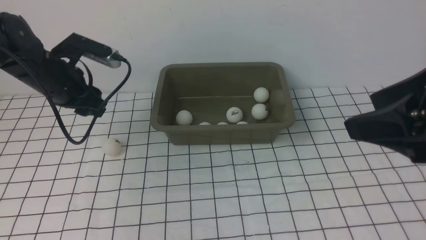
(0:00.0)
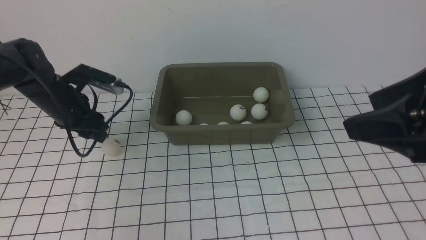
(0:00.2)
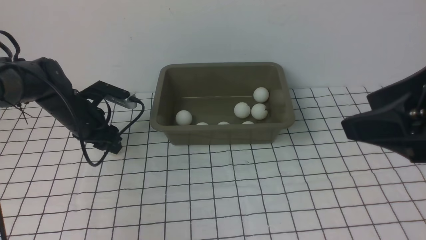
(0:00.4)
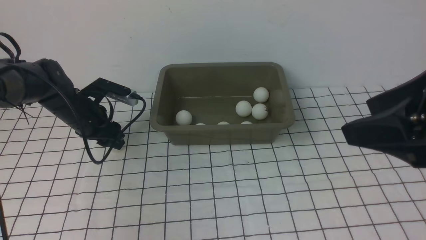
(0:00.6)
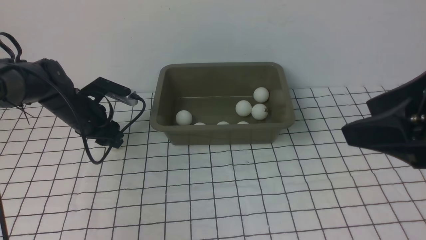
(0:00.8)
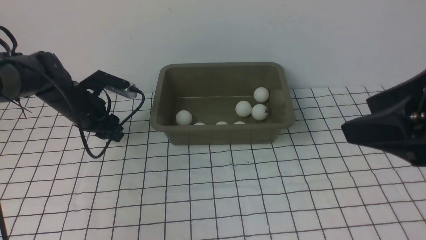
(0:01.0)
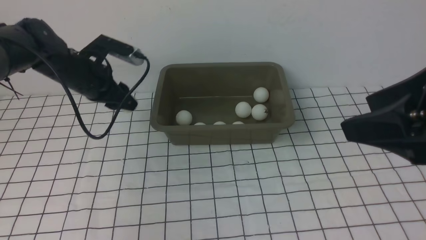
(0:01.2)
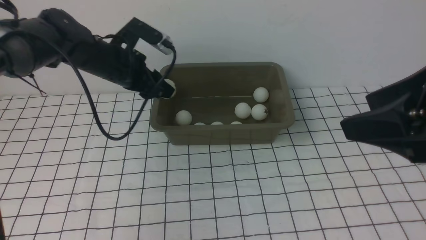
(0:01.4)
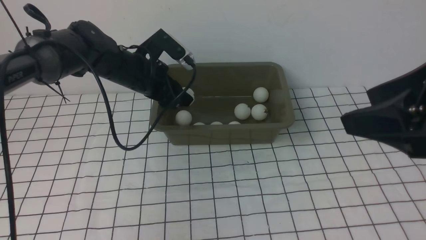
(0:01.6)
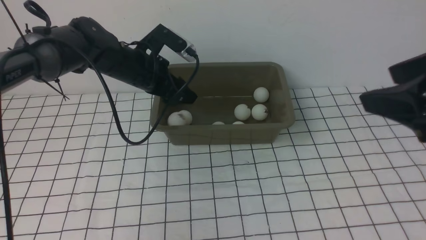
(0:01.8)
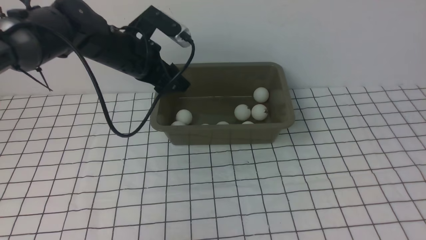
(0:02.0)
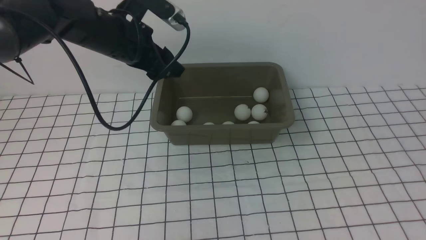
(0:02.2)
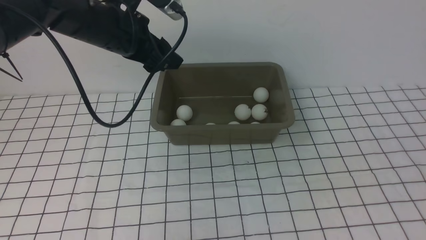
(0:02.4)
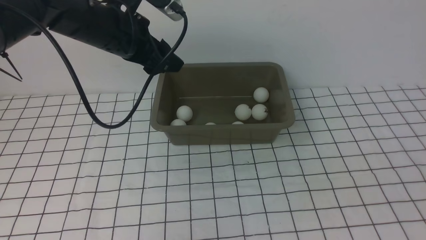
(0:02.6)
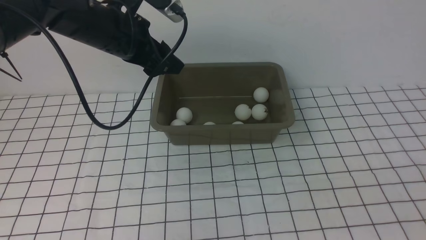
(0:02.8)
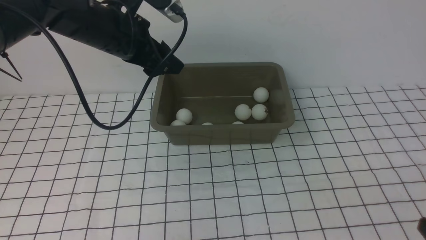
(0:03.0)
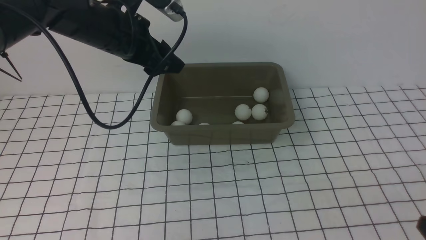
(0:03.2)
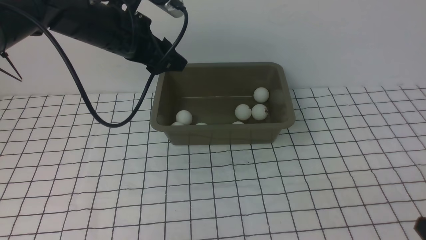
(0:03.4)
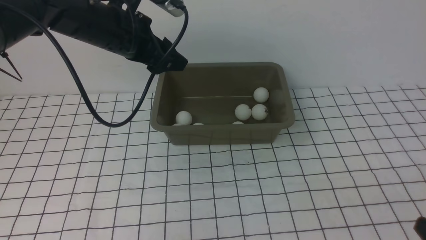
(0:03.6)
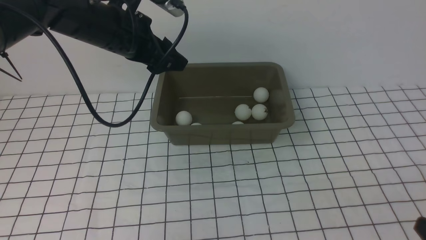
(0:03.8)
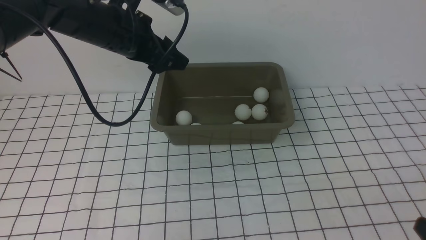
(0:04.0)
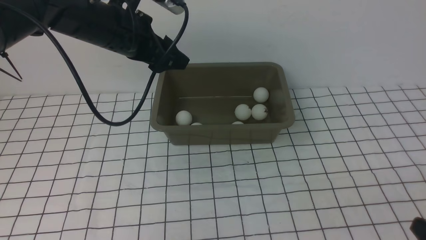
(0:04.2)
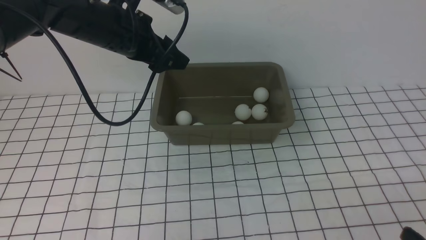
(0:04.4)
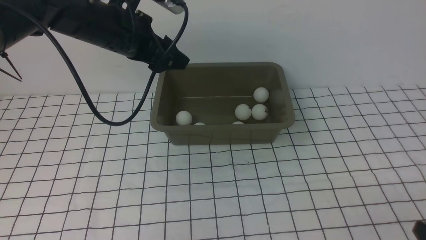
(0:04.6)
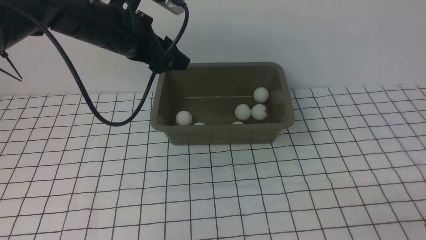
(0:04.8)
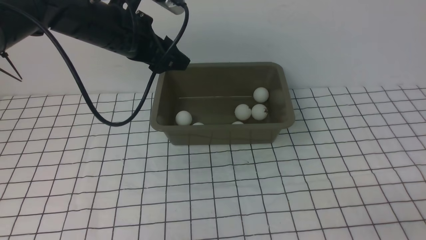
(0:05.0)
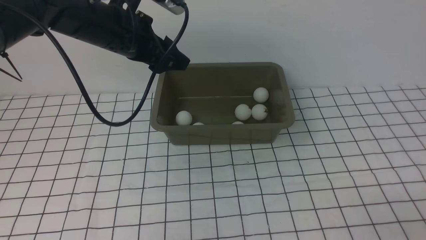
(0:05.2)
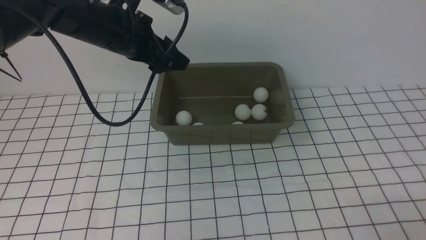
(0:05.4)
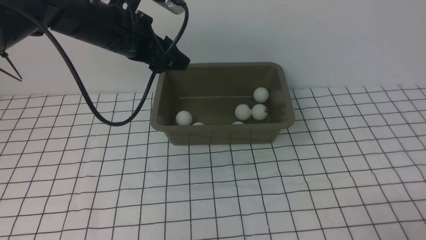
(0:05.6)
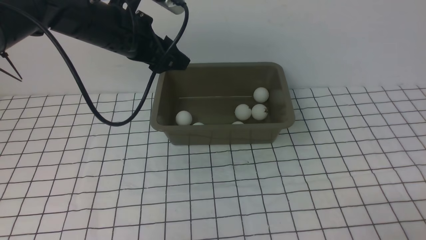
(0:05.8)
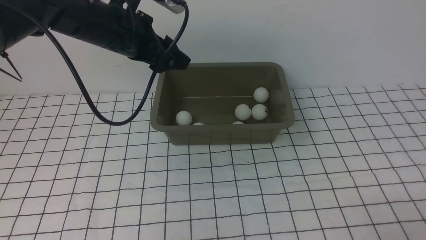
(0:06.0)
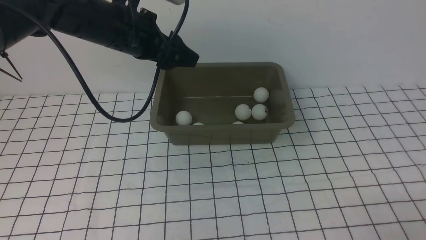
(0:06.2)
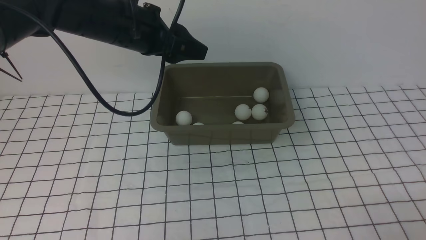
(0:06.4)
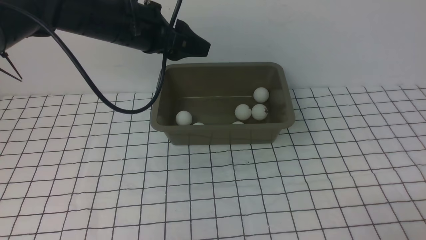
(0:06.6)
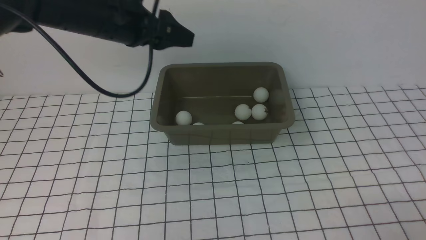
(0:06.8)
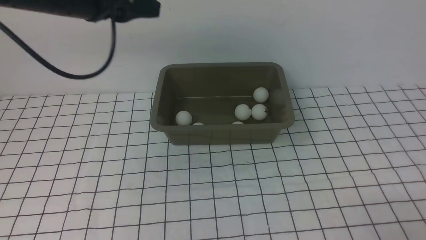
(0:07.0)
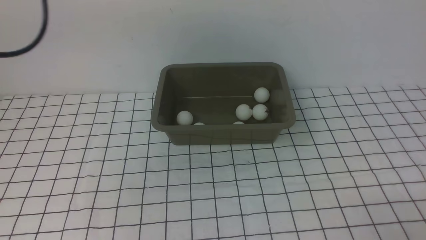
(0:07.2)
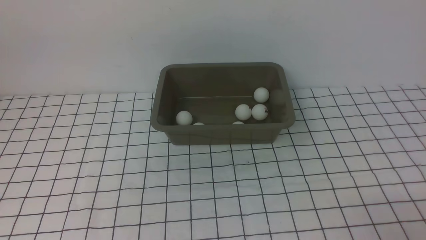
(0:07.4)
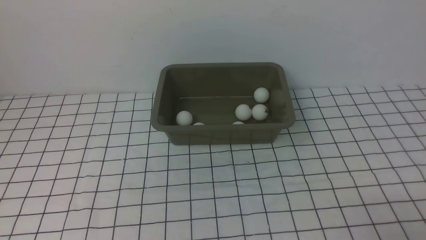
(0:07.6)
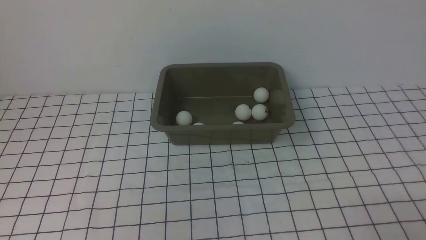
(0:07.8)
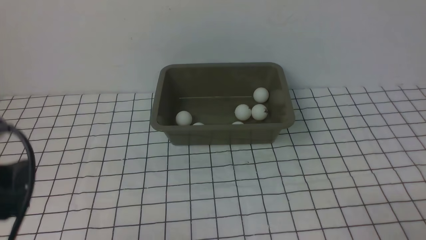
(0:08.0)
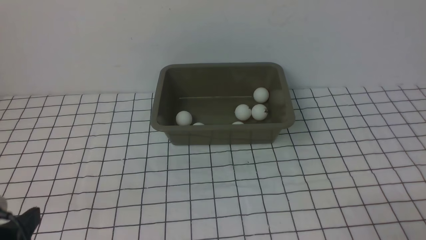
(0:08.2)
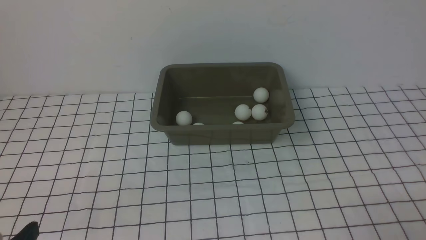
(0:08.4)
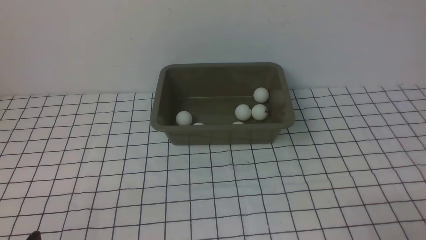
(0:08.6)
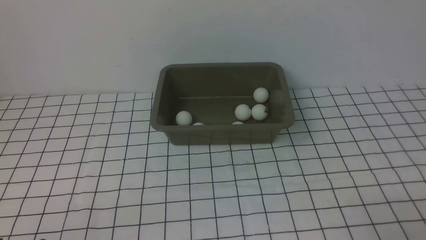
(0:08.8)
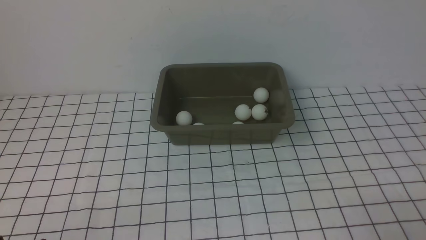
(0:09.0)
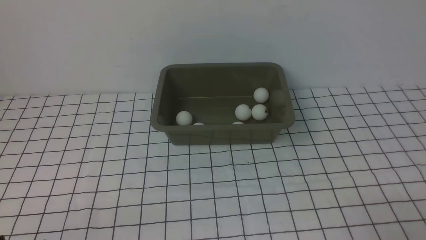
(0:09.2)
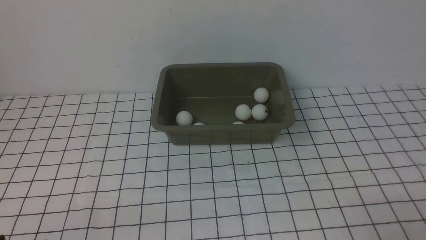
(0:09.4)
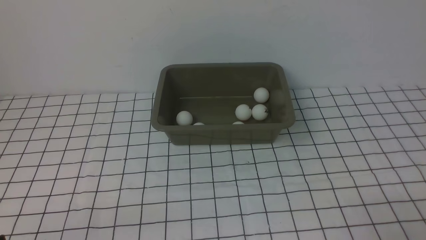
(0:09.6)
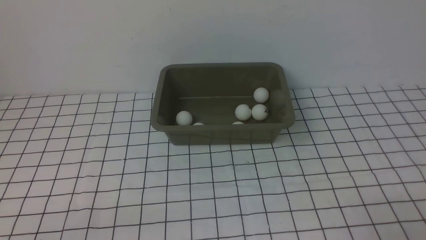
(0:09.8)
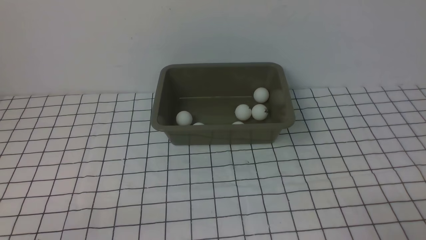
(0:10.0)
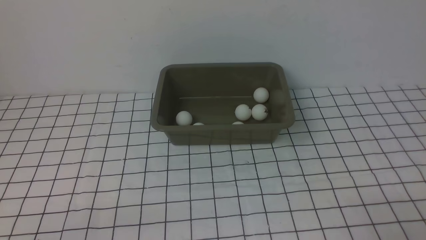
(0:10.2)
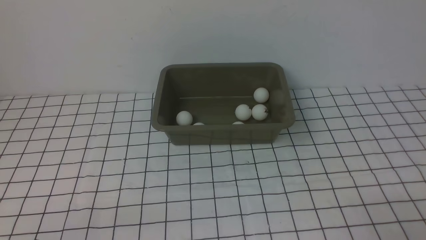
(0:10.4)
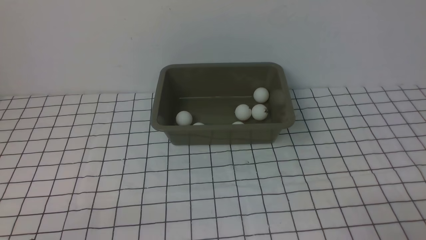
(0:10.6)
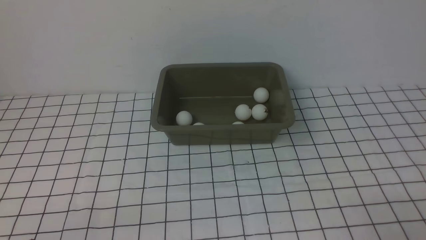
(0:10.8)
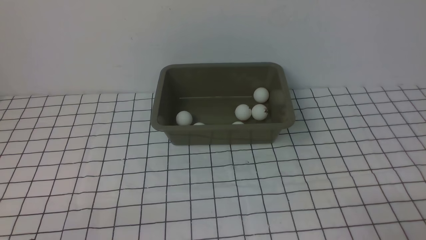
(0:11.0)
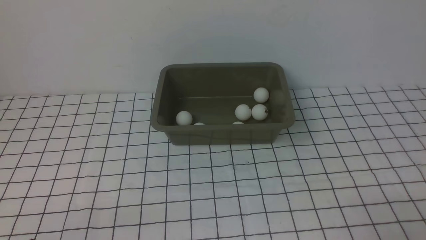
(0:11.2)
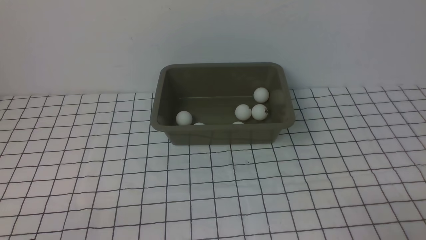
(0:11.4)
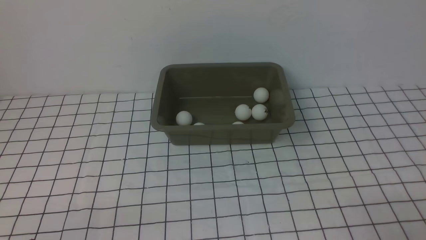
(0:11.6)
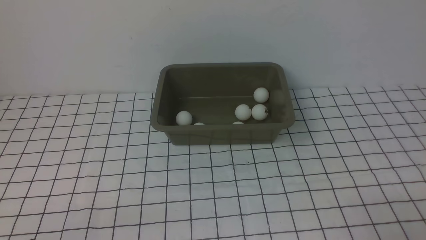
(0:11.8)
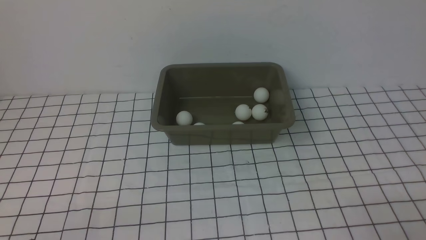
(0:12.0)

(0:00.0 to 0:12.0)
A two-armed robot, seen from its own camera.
Step, 0:00.0 - 0:01.0: use the left arm to clamp the table tennis ball closest to it.
Step, 0:01.2 - 0:01.8: use the left arm to put the table tennis ball into the box.
0:00.0 - 0:01.6: The left gripper is displaced to the right by approximately 10 cm.
0:01.6 - 0:03.0: The right gripper shifts roughly 20 cm downward, backward and to the right; the left gripper is displaced upward by about 10 cm, and opens.
0:03.0 - 0:04.4: There are only small adjustments of the grippers.
0:06.0 - 0:07.6: The left gripper moves backward and to the left, some 25 cm.
0:07.6 - 0:09.0: The left gripper moves downward and backward, approximately 25 cm.
0:09.0 - 0:10.4: Both grippers stay about where they are.
0:10.4 - 0:12.0: Both grippers stay put.

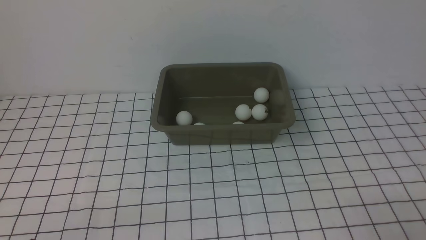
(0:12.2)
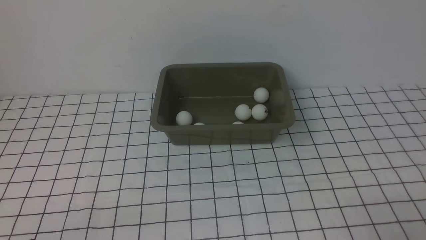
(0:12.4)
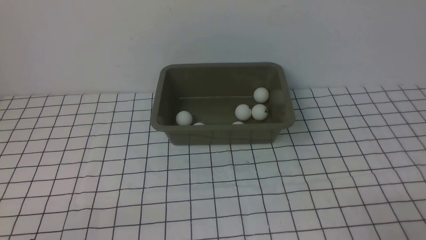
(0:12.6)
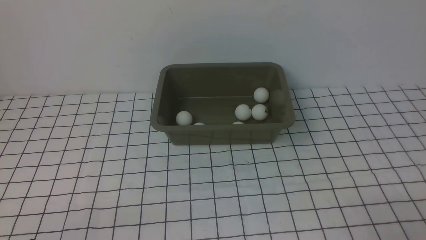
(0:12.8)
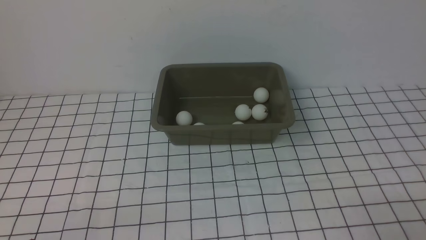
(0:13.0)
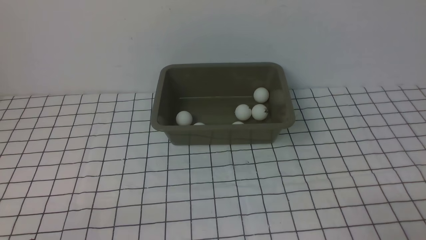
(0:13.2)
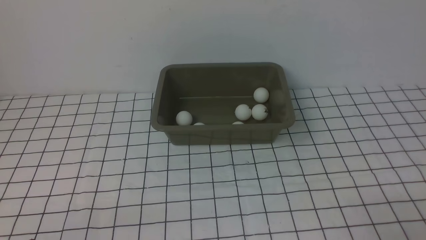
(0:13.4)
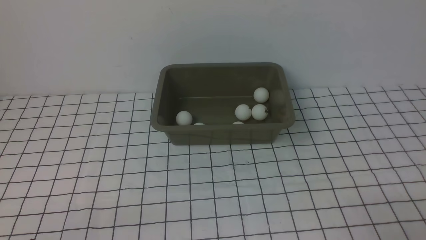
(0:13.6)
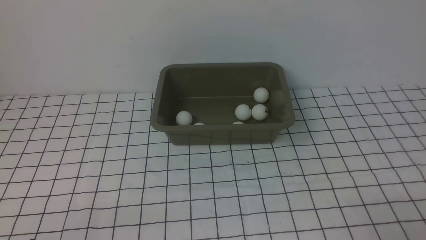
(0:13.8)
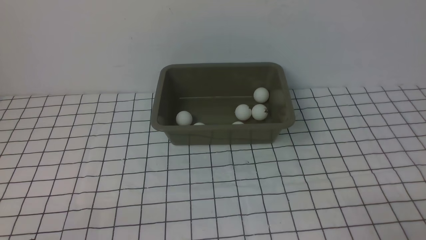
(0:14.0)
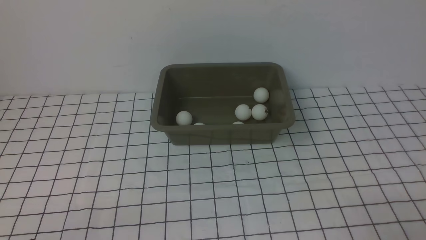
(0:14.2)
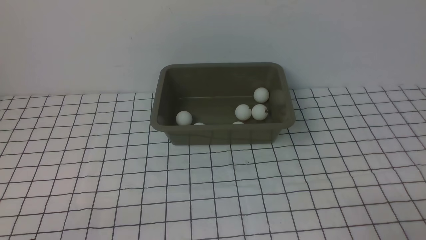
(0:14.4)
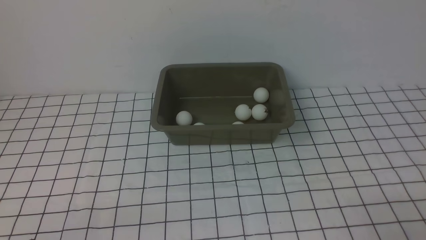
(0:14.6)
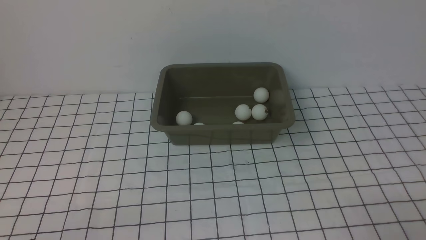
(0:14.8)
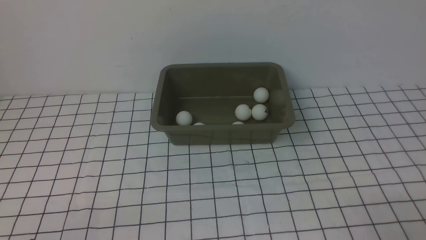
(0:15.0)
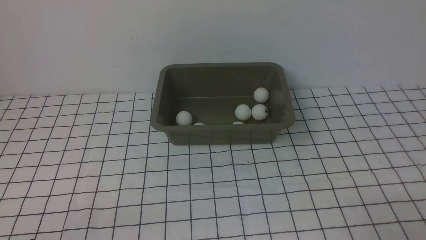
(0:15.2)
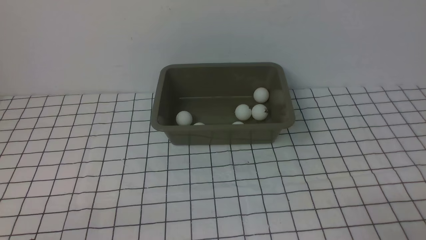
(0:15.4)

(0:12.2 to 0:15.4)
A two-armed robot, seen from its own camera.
0:12.2 - 0:15.4: Neither gripper changes place.
